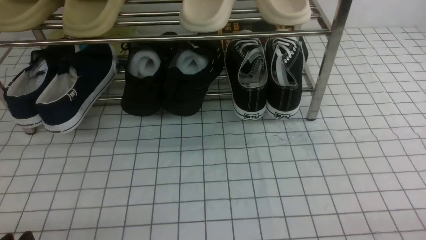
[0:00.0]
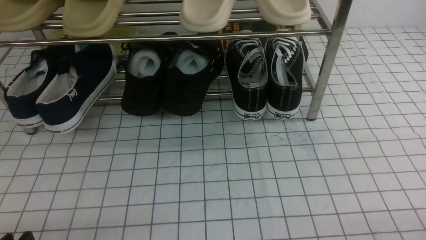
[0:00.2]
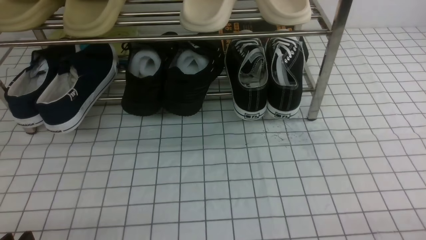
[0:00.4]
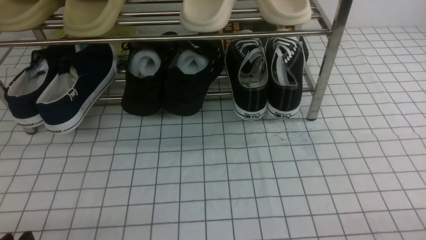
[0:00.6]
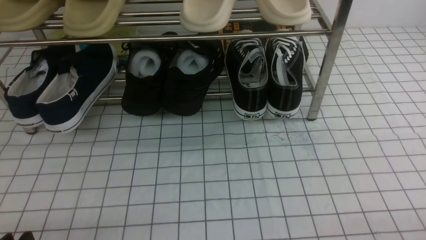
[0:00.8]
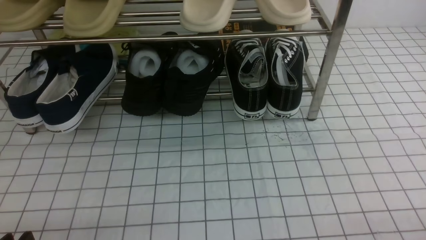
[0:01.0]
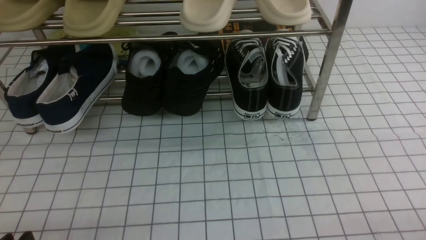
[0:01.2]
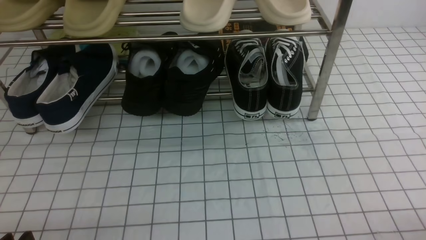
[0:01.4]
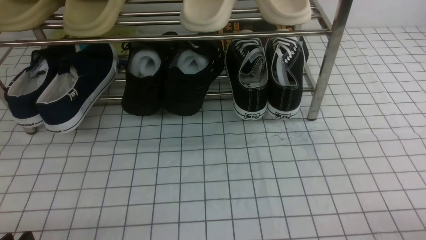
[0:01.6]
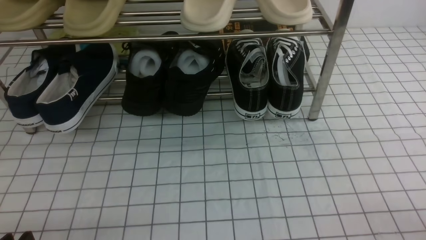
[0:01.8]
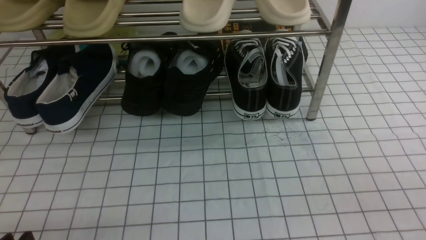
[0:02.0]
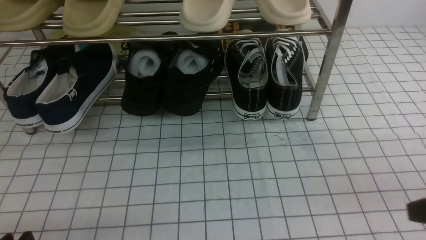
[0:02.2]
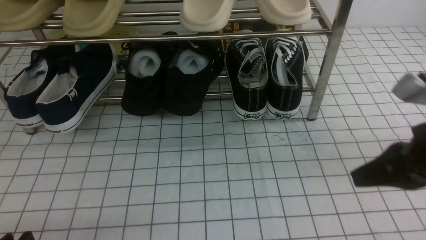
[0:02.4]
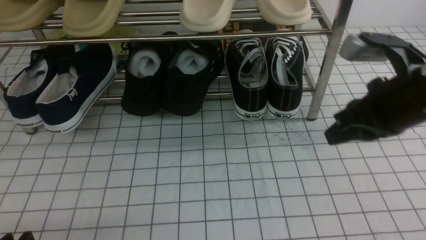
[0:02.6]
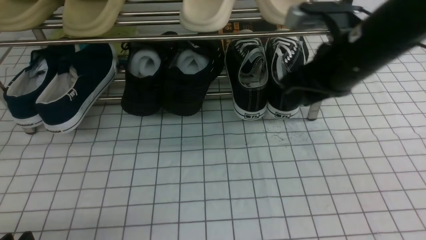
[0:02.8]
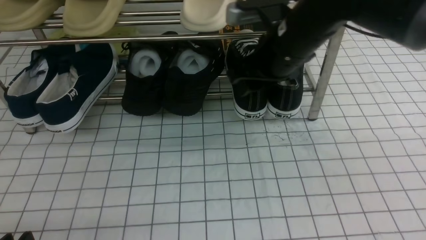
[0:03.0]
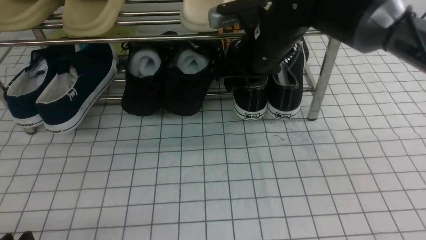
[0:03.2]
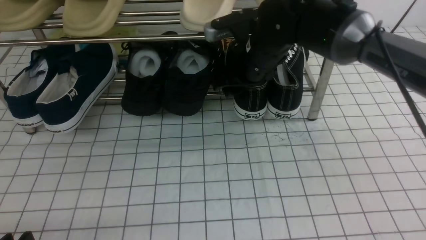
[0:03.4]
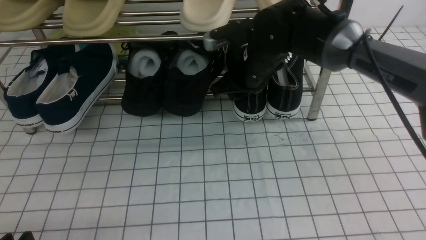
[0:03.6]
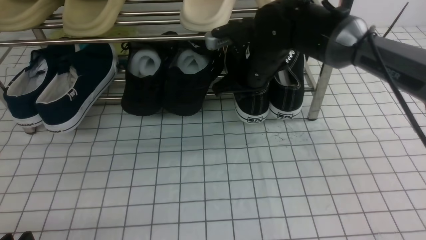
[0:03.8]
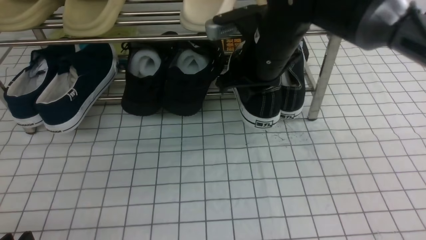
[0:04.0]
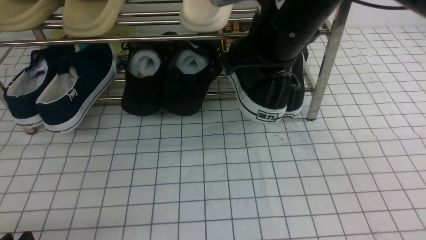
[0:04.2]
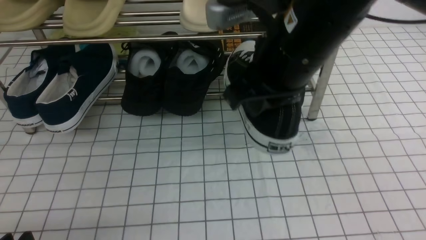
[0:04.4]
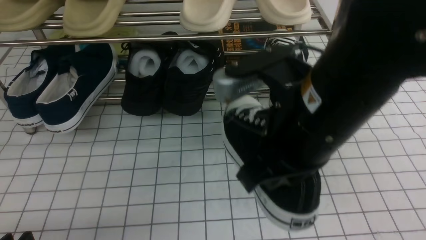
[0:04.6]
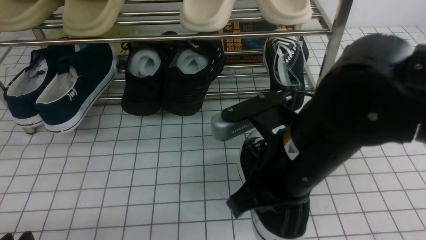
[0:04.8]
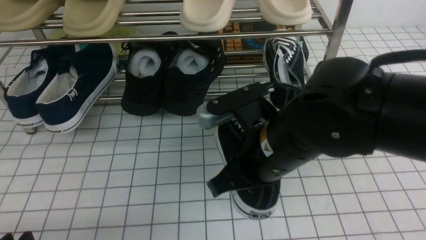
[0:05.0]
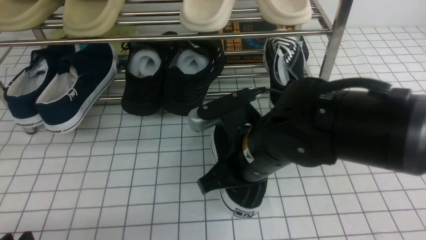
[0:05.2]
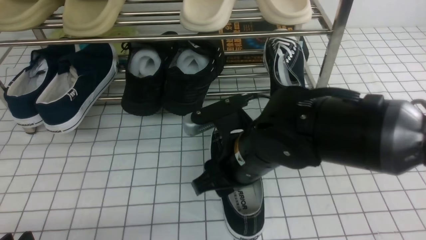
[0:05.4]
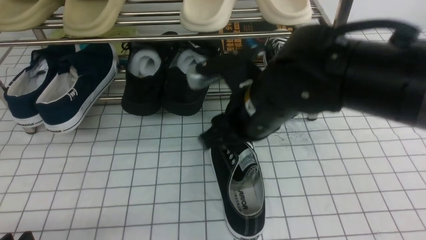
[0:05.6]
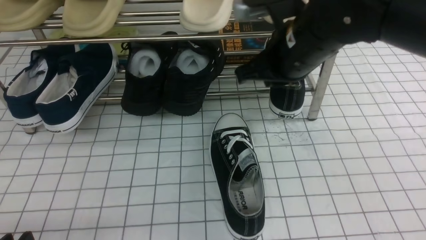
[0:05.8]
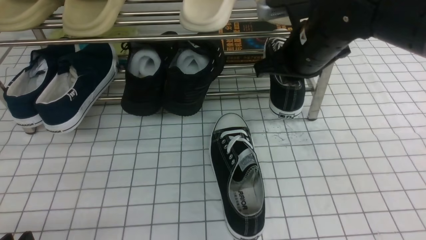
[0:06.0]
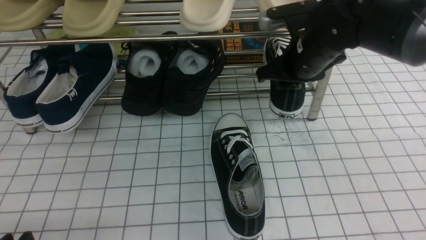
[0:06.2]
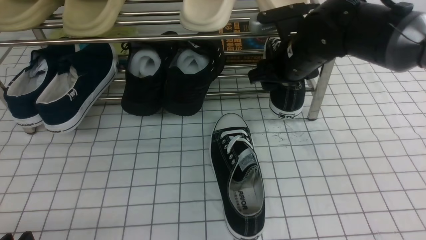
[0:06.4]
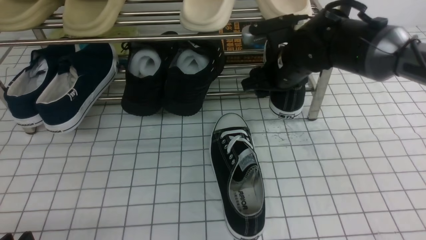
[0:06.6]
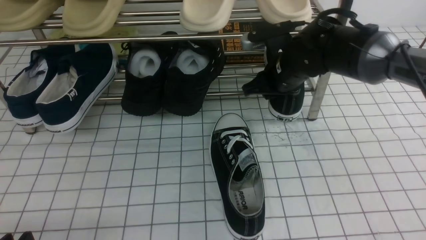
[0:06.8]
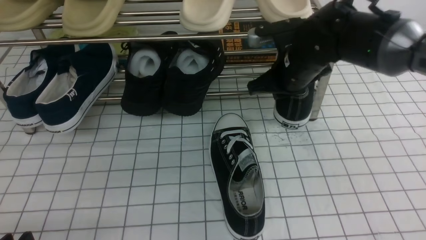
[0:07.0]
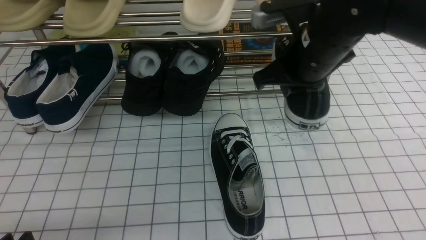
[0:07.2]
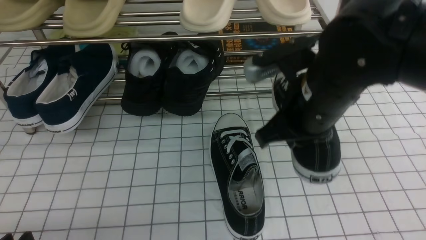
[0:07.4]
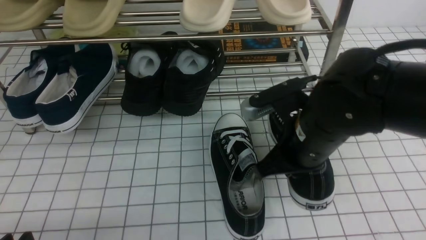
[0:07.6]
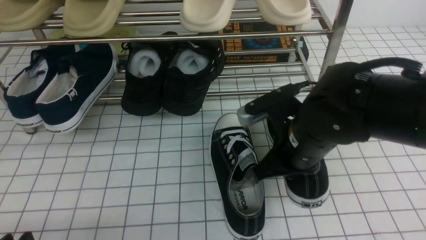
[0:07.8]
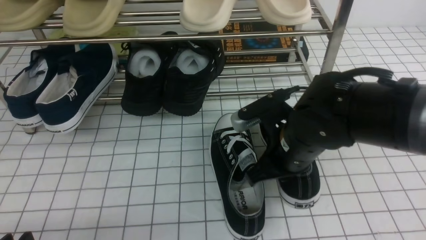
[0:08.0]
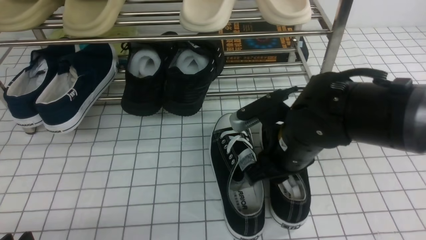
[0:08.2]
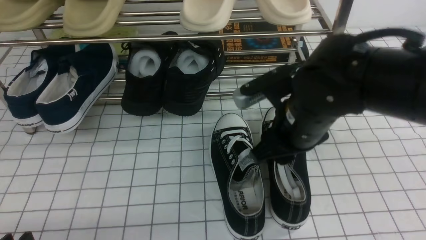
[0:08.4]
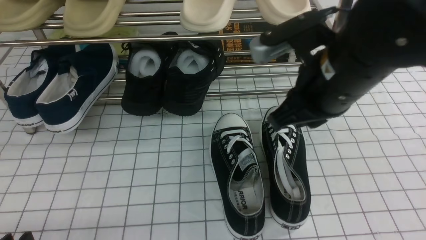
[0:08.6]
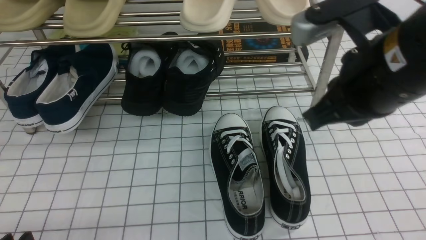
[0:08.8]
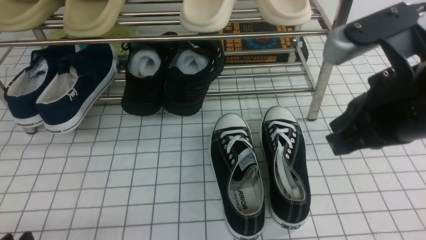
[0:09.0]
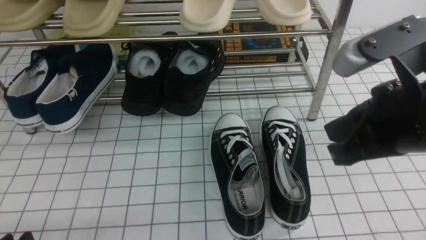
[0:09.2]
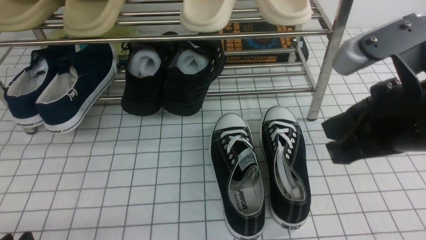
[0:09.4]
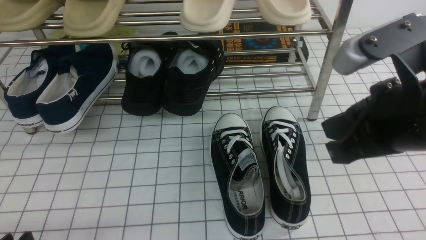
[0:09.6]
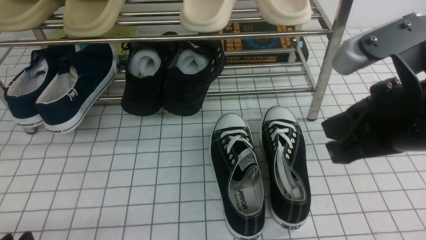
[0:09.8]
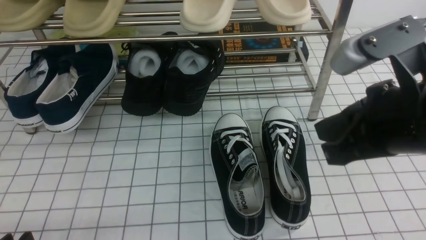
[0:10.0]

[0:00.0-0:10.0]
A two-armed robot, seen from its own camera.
Step, 0:00.0 to 0:03.6: use the right arm to clamp a shoe on the right side of the shoe rack.
Step, 0:03.8 to 0:05.6: use the right arm to take out the clamped shoe from the shoe rack and put it down.
Step, 0:05.8 to 0:06.8: use the right arm to clamp a shoe on the right side of the shoe rack.
Step, 0:07.0 to 0:08.4: use the right arm to take out the clamped shoe from the shoe rack and put it down.
0:01.4 to 0:02.8: The right gripper travels forward, upward and to the left by some 30 cm, and closes, then reopens.
0:02.8 to 0:04.2: The right gripper goes approximately 10 cm to the left, travels forward and back again, some 10 cm each way, and closes up.
0:04.2 to 0:05.8: The right gripper reaches about 15 cm backward, then returns, and opens its fingers.
0:05.8 to 0:07.2: The right gripper closes up.
0:07.2 to 0:08.6: The right gripper goes about 10 cm backward, and opens its fingers.
0:08.6 to 0:10.0: The right gripper travels backward and to the right by roughly 10 cm, and closes.

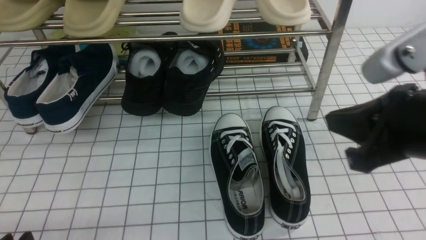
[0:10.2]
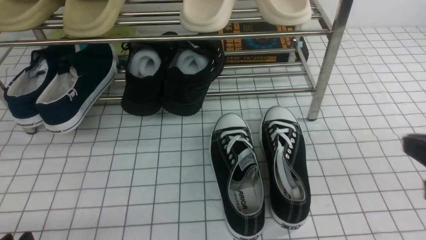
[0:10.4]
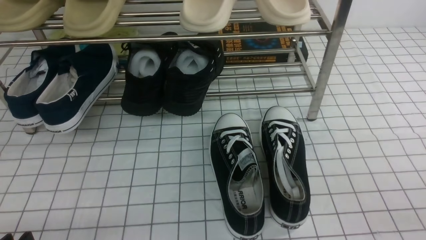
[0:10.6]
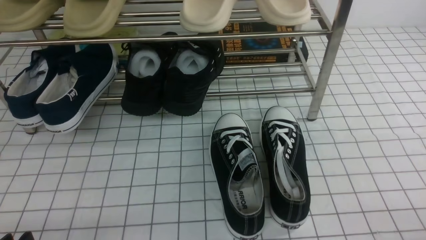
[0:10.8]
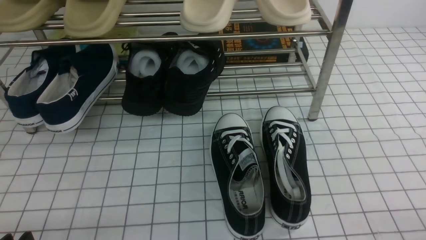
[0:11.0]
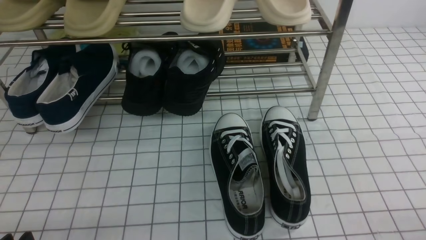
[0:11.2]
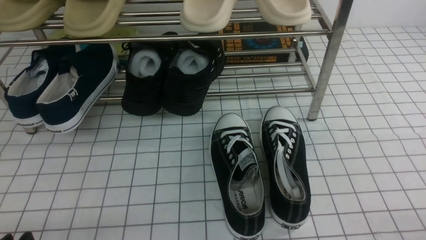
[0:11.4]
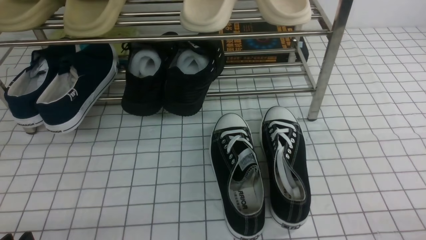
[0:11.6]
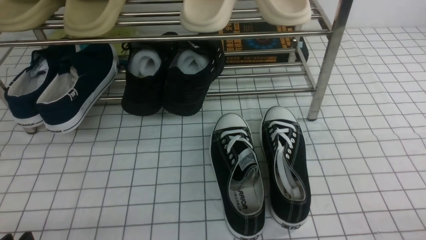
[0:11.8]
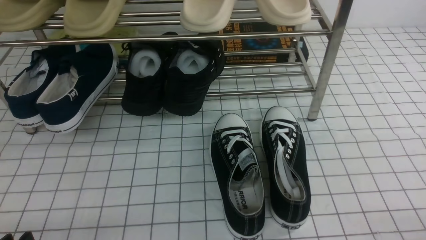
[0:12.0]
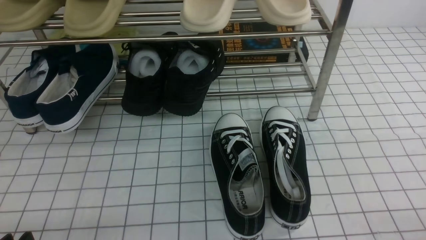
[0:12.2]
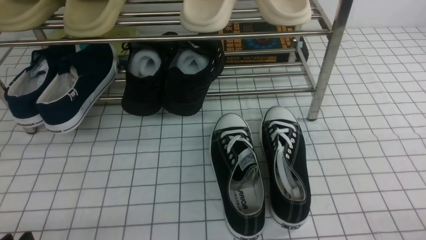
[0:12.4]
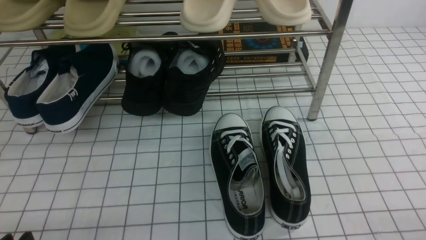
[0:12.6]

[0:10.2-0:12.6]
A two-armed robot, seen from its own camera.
0:10.2 to 0:11.4: The right gripper goes about 25 cm downward, to the right and backward.
0:11.4 to 0:12.6: Both grippers stay put.

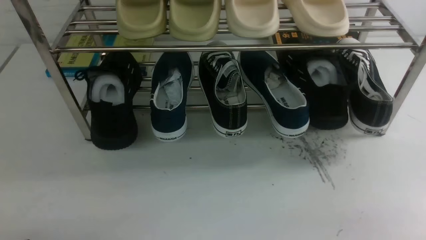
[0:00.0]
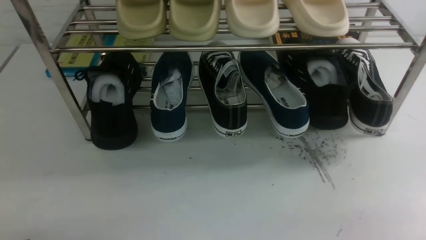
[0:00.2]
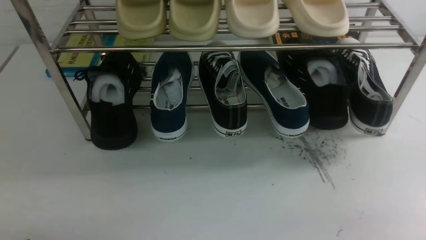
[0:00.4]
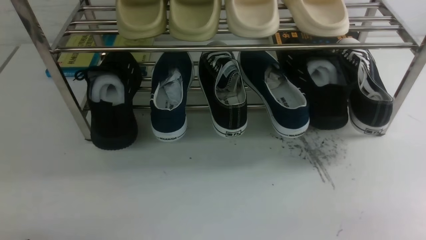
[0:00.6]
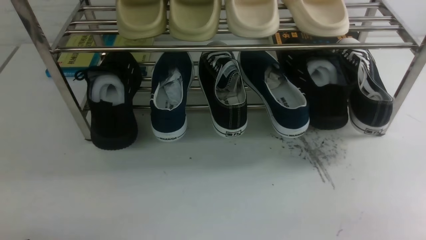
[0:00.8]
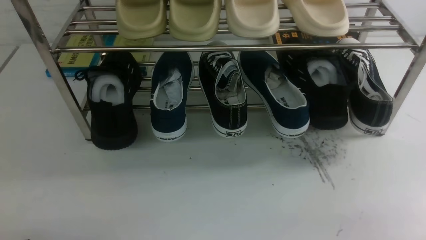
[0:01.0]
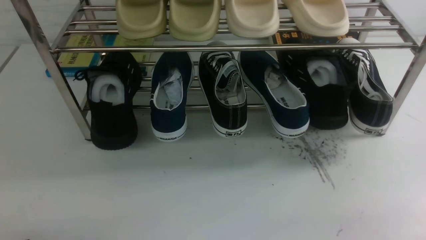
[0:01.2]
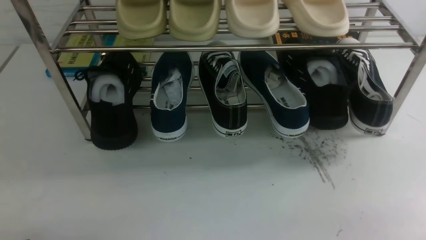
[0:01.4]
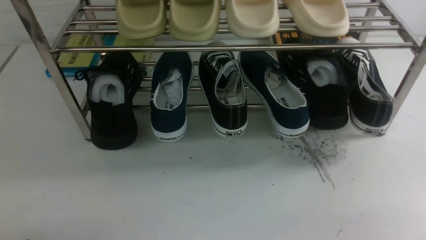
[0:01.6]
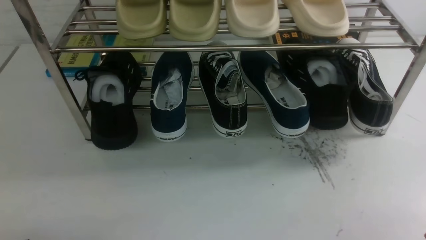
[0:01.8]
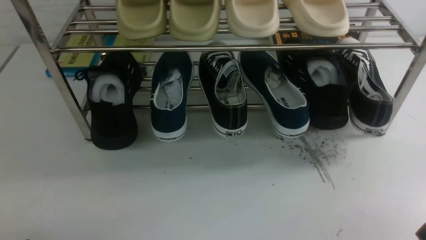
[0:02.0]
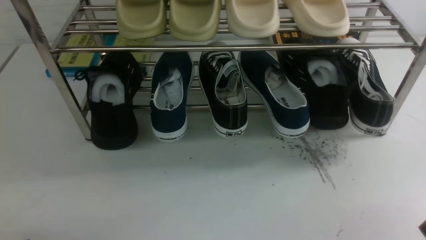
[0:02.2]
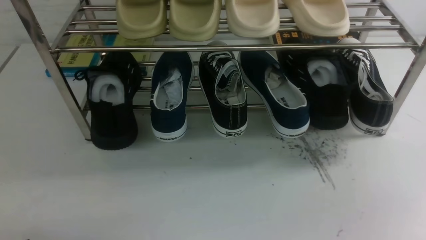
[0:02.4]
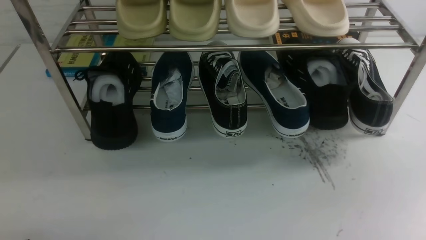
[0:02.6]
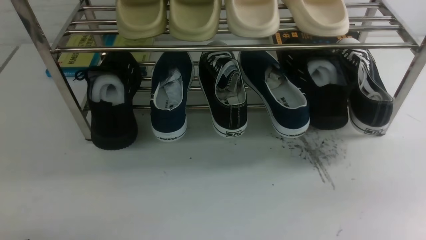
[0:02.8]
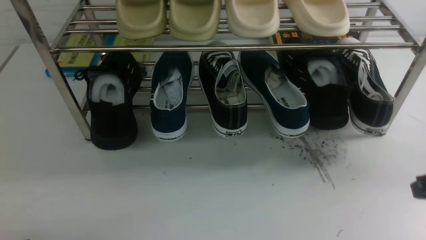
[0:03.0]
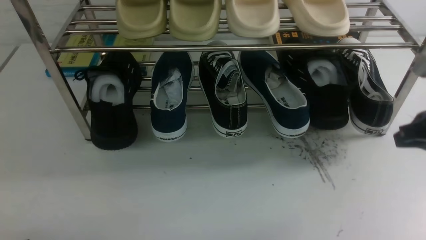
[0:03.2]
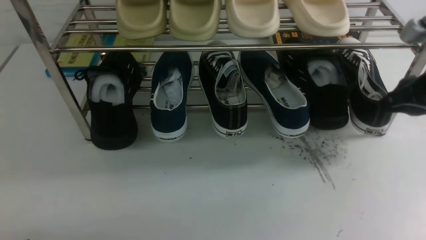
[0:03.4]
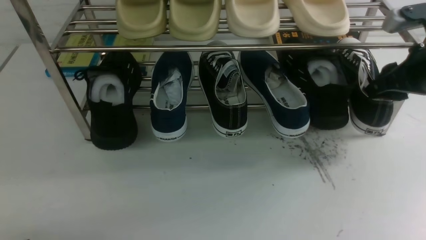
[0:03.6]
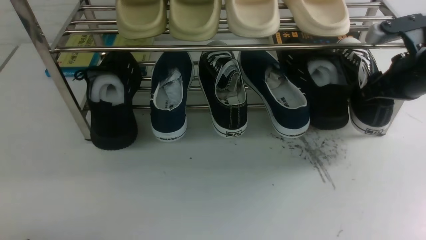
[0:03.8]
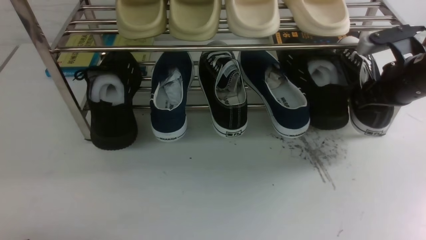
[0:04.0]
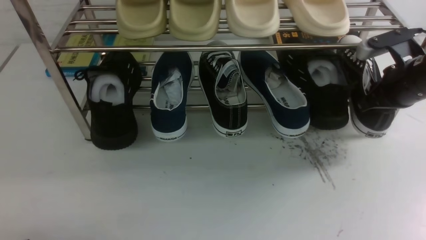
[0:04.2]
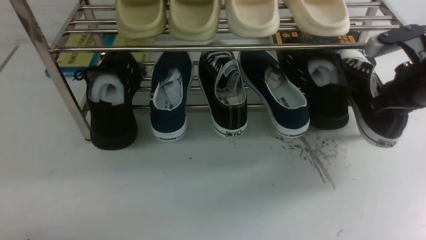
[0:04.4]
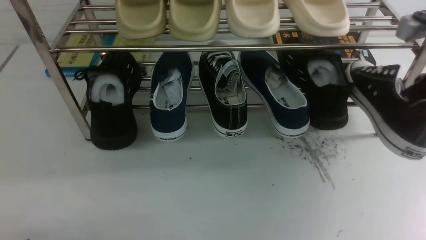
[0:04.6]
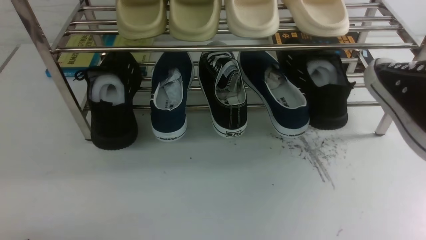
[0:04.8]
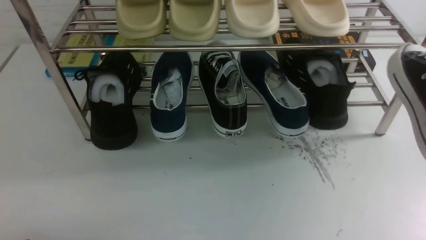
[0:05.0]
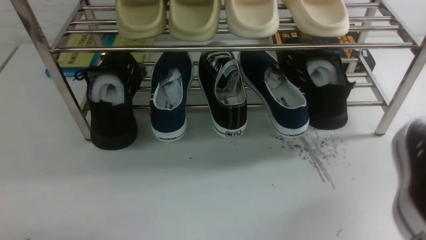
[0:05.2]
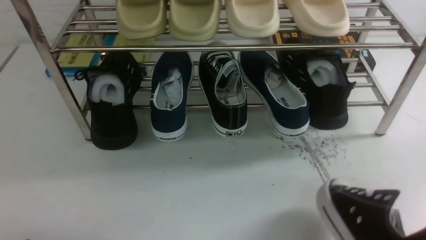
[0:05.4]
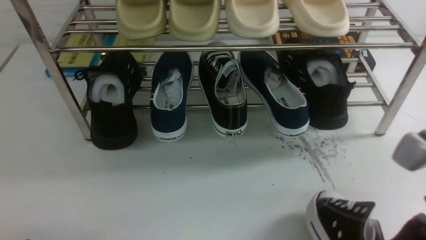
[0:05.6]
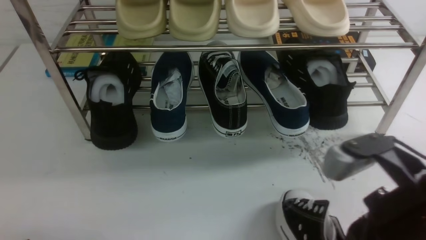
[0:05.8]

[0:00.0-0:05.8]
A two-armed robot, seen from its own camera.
Step, 0:00.0 to 0:04.6: use the right arm to clamp a shoe on the right side of the shoe rack.
0:00.0 to 0:01.4: The two grippers keep their place.
0:02.8 to 0:04.4: The right gripper is displaced forward by about 20 cm, and opens and closes again.
0:04.4 to 0:05.8: The right gripper goes some 20 cm backward and to the left.
